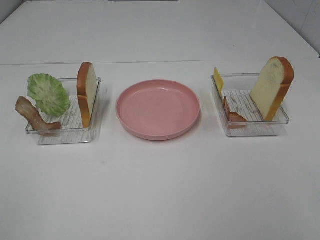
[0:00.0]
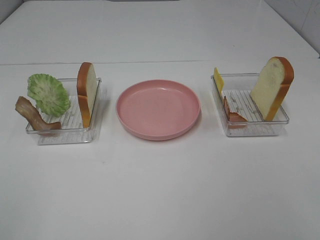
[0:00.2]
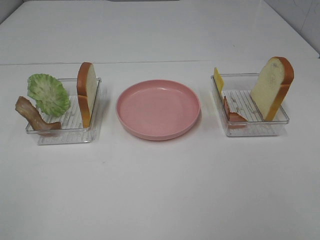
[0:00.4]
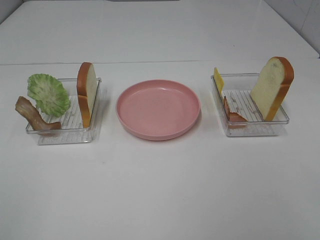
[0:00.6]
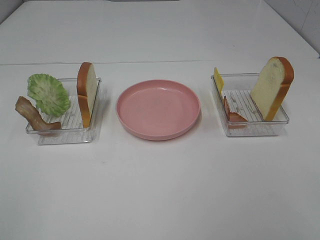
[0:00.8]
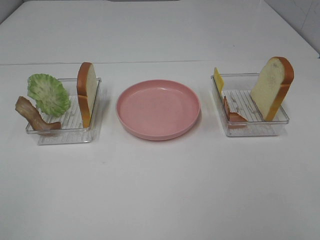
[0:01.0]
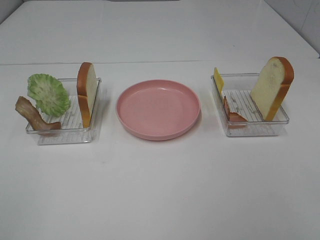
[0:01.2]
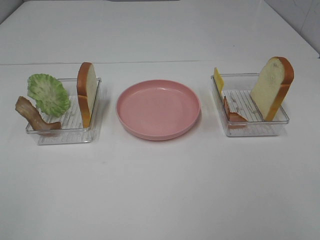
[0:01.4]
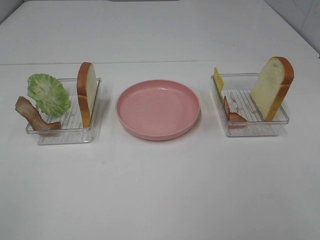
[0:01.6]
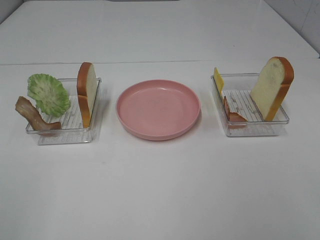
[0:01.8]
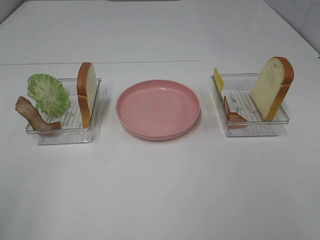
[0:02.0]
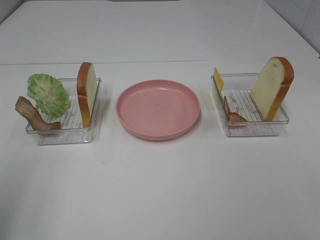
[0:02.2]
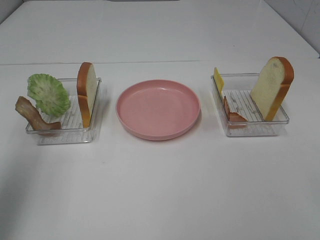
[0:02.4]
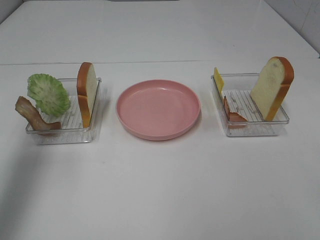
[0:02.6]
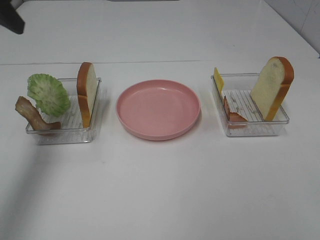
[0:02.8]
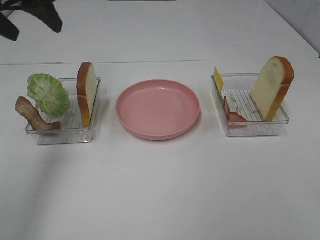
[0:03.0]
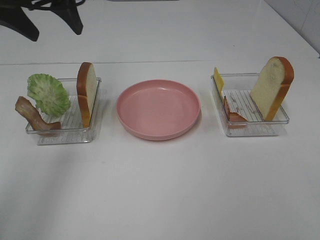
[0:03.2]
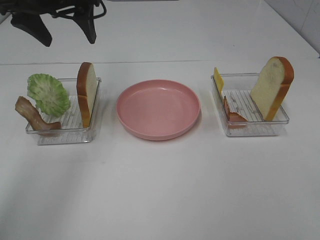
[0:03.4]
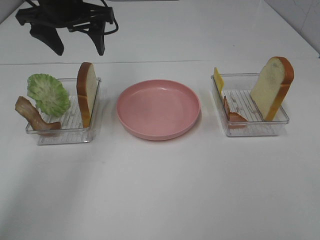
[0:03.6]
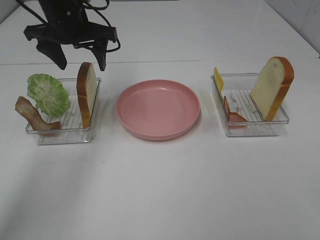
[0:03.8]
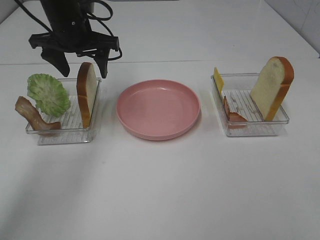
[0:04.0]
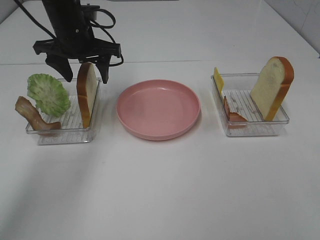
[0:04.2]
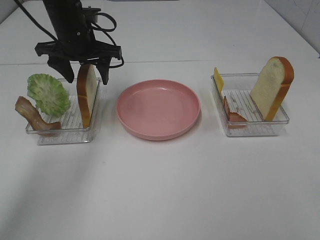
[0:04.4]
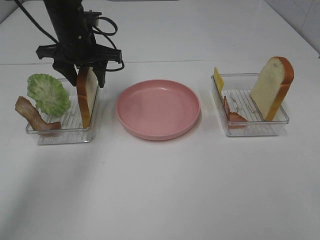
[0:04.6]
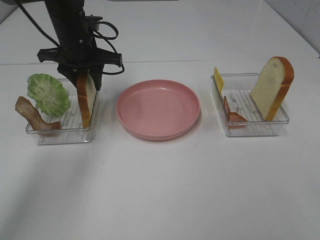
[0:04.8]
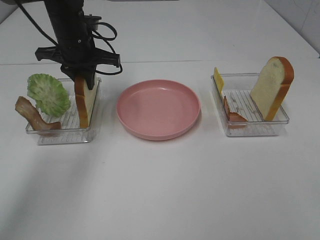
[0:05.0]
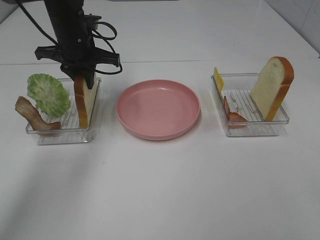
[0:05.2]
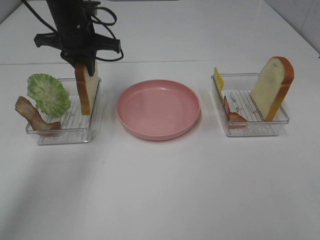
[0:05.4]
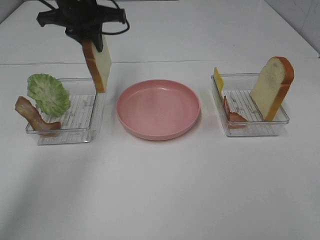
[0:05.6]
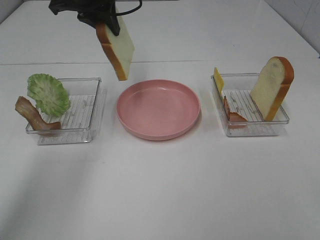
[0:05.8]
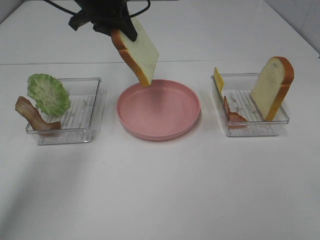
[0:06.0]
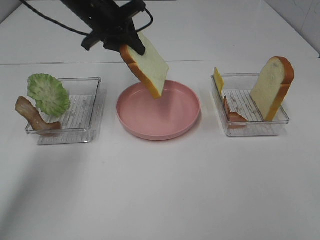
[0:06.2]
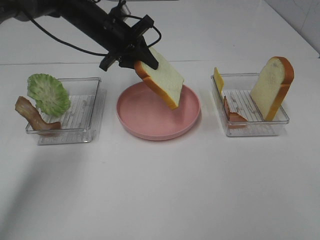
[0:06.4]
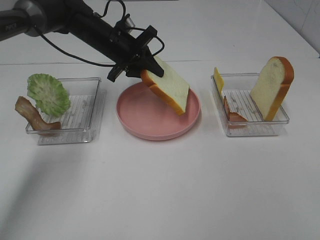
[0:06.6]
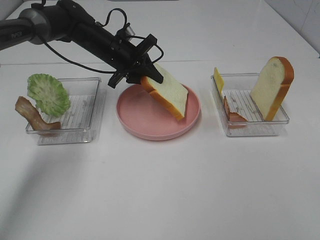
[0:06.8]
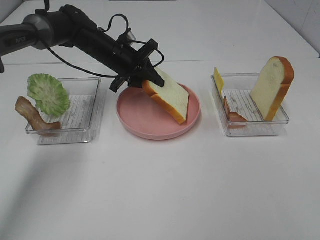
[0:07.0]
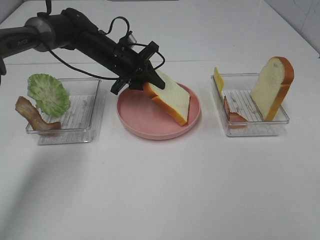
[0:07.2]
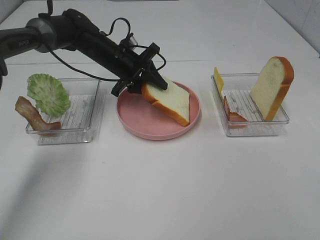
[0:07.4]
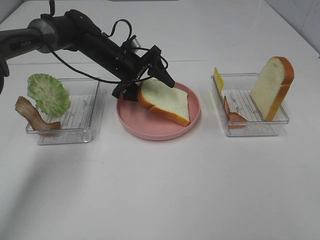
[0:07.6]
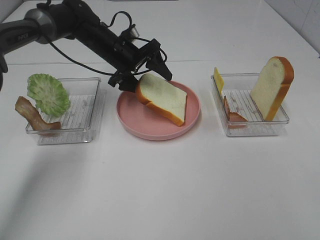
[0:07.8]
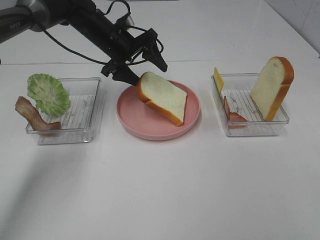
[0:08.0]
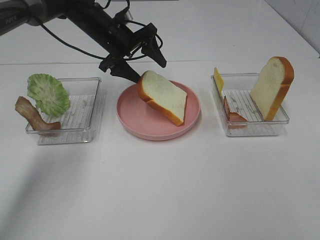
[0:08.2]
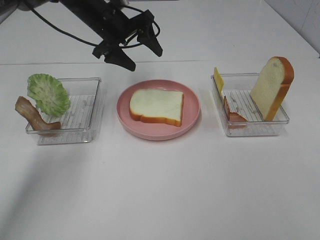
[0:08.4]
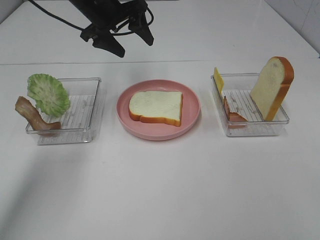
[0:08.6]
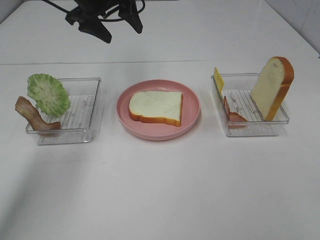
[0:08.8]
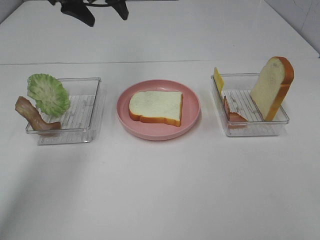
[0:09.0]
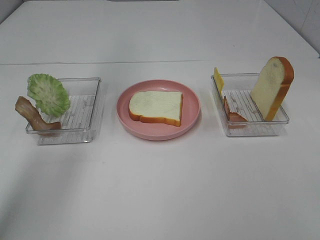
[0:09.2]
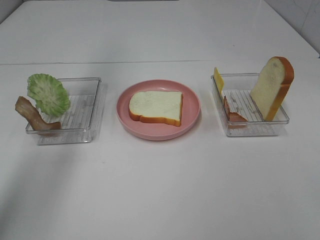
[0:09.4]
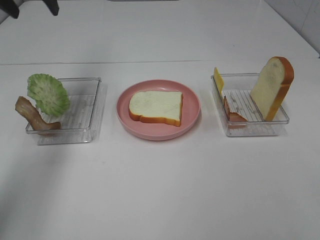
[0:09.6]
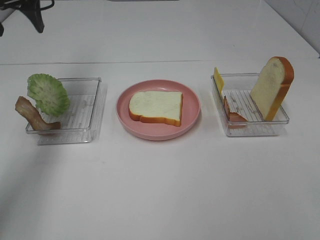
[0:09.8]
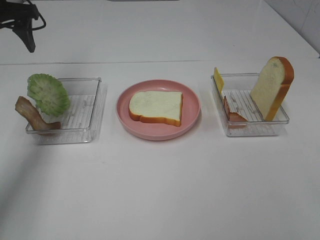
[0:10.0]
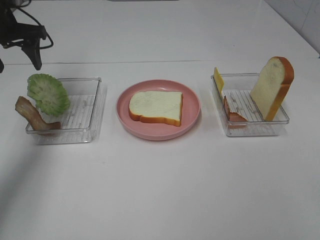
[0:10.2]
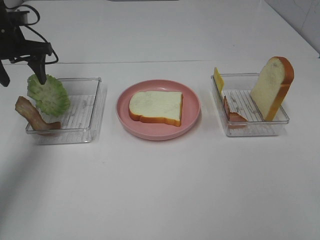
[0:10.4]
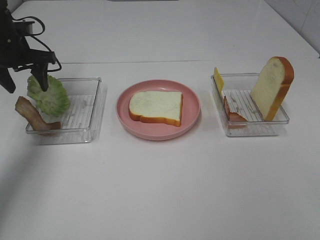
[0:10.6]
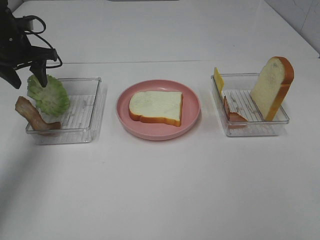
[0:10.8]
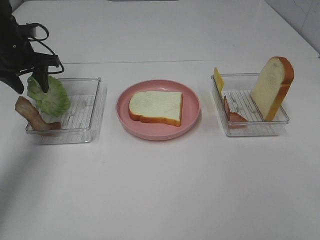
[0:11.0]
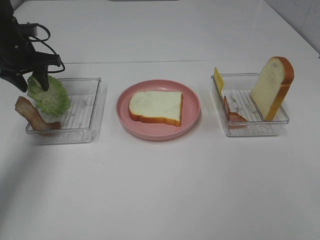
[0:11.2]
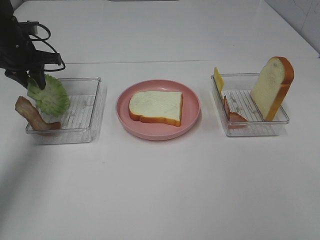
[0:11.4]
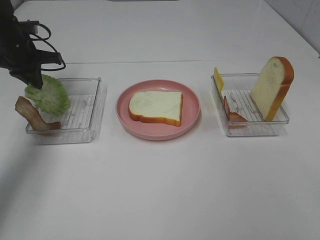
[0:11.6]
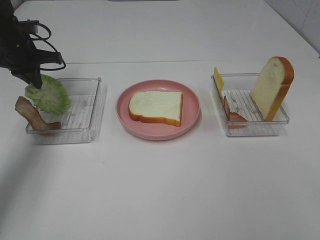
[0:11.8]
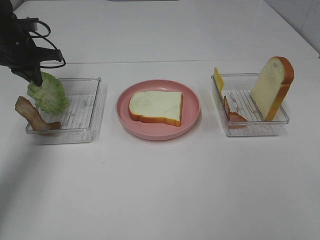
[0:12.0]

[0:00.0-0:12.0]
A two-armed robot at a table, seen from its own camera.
Task of the whole recording: Make sandwiches.
Step, 0.0 to 5.0 s: Left hand:grab the bread slice.
Step, 5.2 to 8.4 s: Left hand:place the bread slice on the plate.
Step, 8.6 to 11.4 s: Left hand:grab the lettuce slice.
0.0 to 1.6 s: Both grippers stay put.
1.6 to 3.0 s: The left gripper shifts approximately 35 cm forward.
3.0 to 4.4 s: The left gripper travels downward, forward and to the right by roughly 15 cm.
4.4 to 6.0 s: The left gripper goes some 5 cm upward, and closes up.
6.0 to 7.6 s: The left gripper moves downward, some 15 cm, and opens up.
7.6 to 9.0 s: The left gripper travels upward by approximately 20 cm.
9.0 to 10.4 s: The left gripper goes some 20 cm to the left and downward.
10.4 to 12.0 s: The left gripper closes.

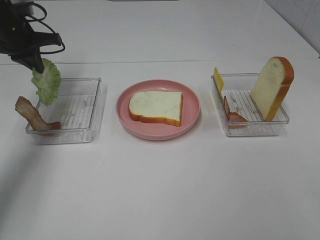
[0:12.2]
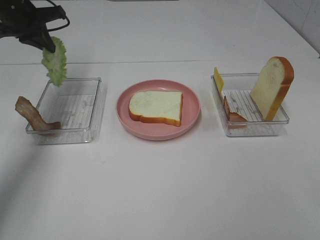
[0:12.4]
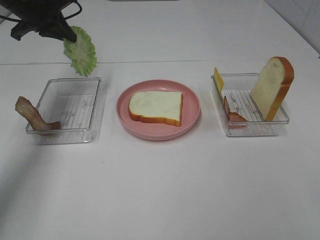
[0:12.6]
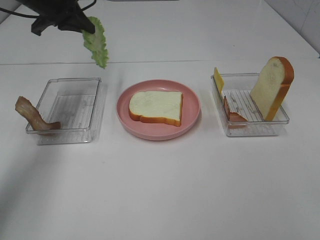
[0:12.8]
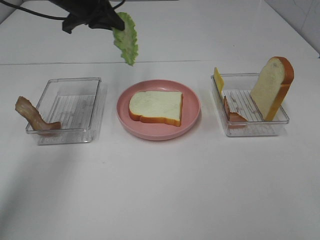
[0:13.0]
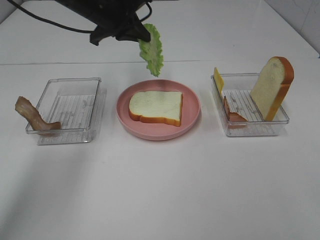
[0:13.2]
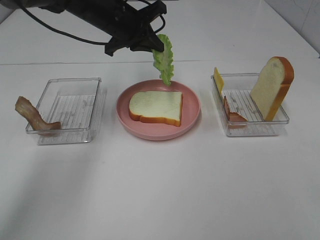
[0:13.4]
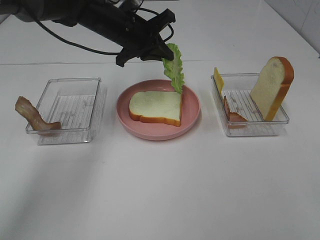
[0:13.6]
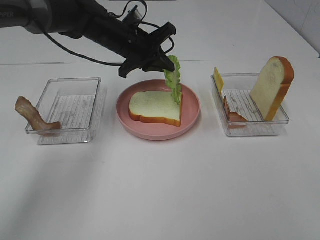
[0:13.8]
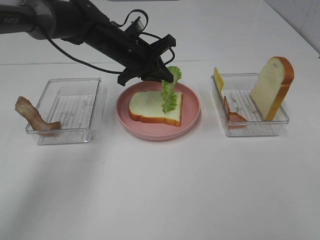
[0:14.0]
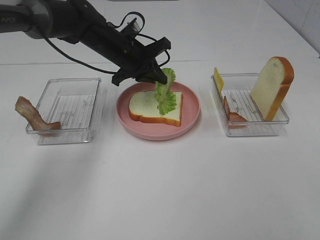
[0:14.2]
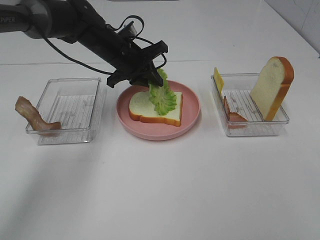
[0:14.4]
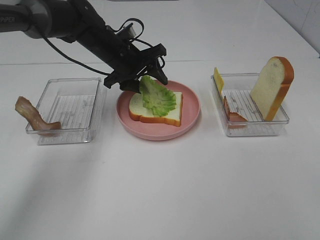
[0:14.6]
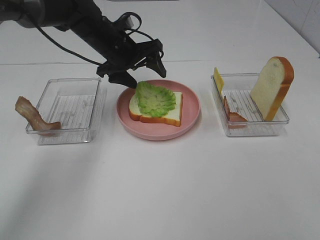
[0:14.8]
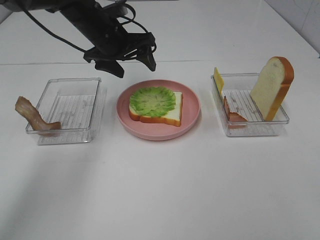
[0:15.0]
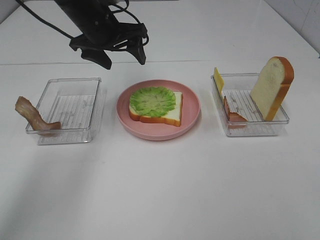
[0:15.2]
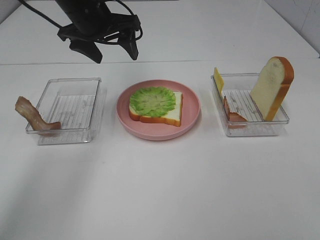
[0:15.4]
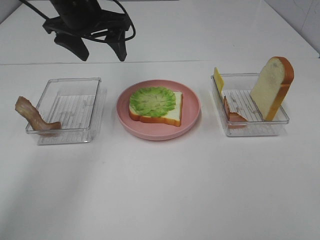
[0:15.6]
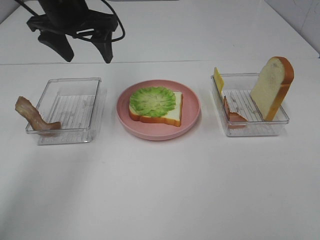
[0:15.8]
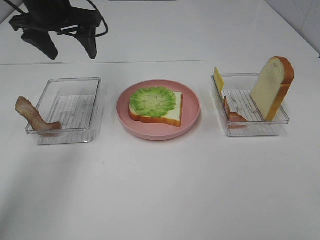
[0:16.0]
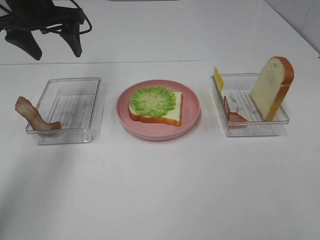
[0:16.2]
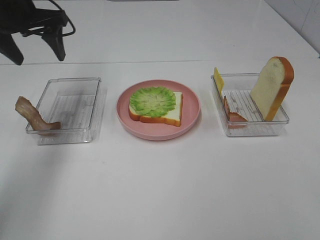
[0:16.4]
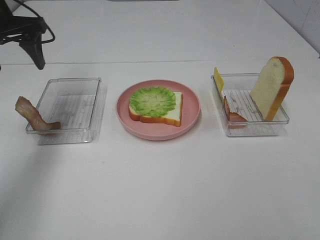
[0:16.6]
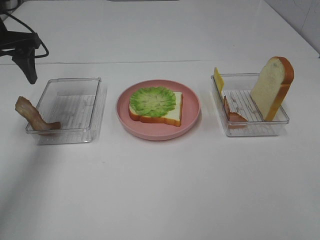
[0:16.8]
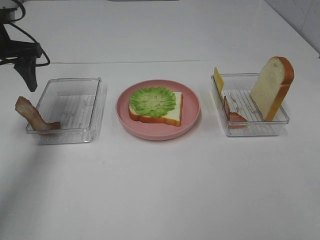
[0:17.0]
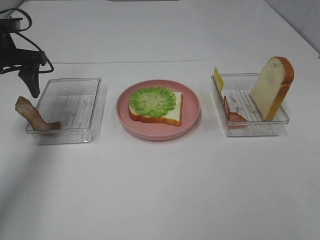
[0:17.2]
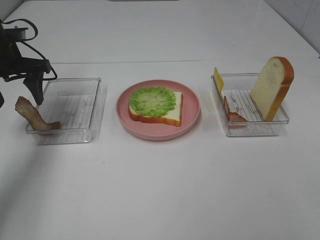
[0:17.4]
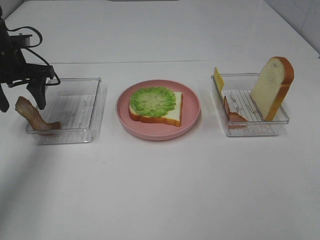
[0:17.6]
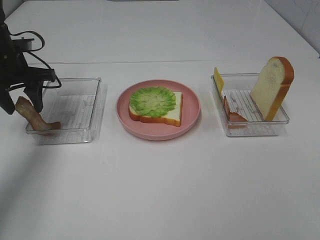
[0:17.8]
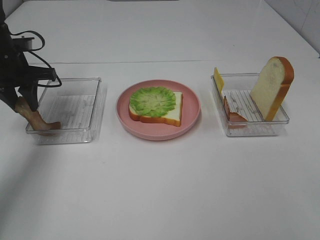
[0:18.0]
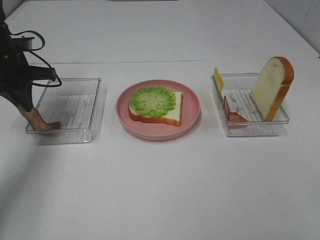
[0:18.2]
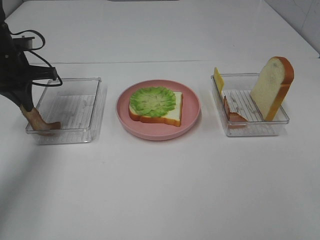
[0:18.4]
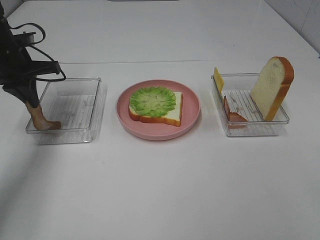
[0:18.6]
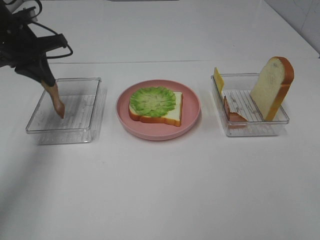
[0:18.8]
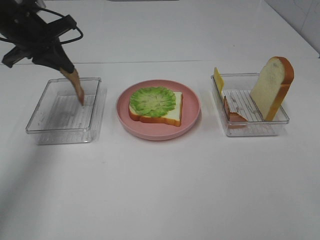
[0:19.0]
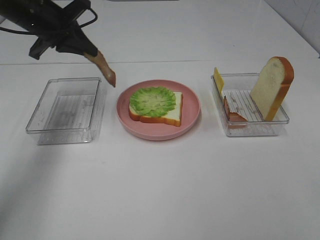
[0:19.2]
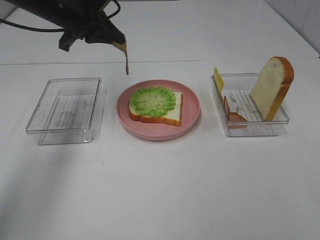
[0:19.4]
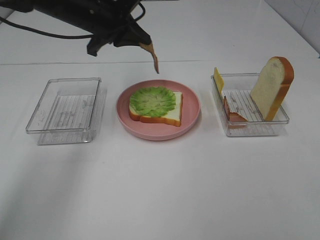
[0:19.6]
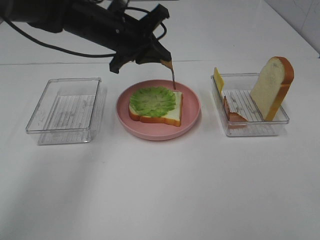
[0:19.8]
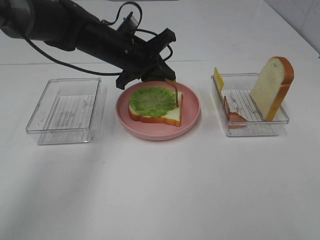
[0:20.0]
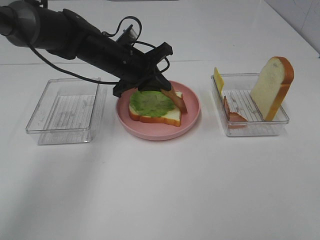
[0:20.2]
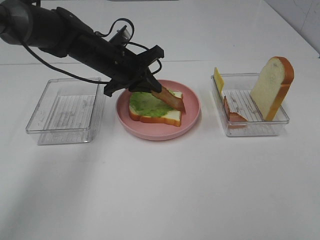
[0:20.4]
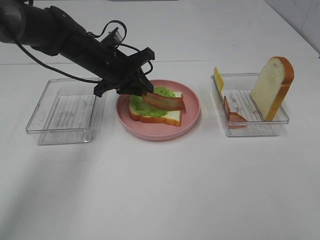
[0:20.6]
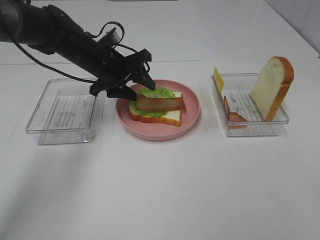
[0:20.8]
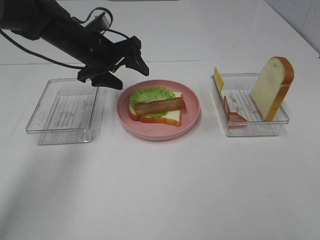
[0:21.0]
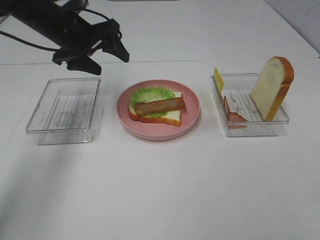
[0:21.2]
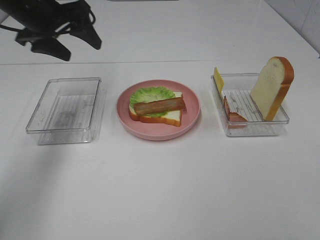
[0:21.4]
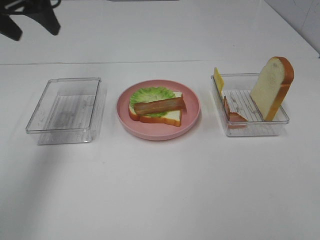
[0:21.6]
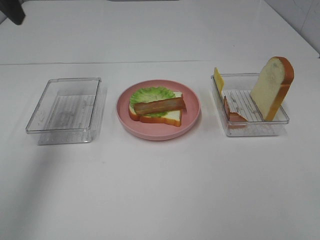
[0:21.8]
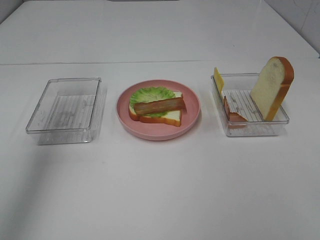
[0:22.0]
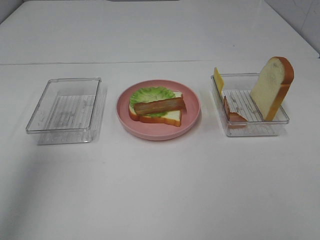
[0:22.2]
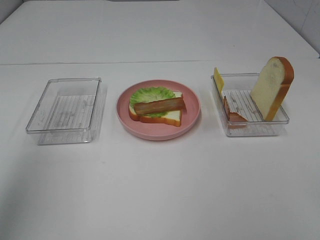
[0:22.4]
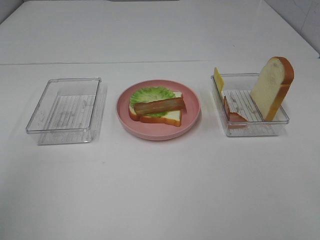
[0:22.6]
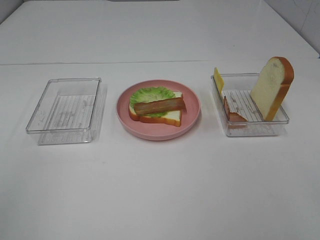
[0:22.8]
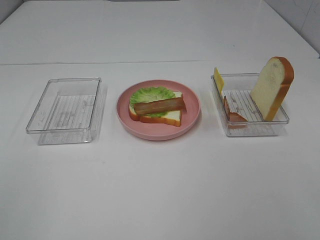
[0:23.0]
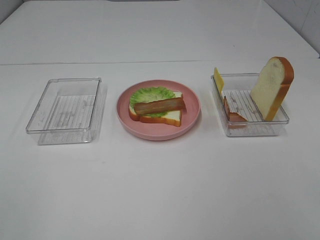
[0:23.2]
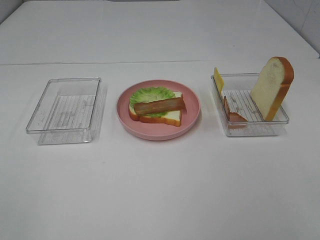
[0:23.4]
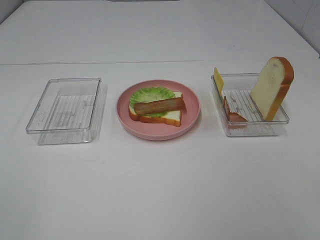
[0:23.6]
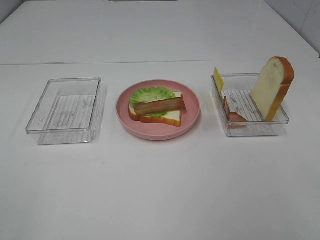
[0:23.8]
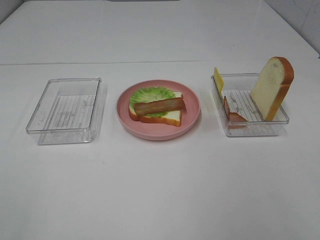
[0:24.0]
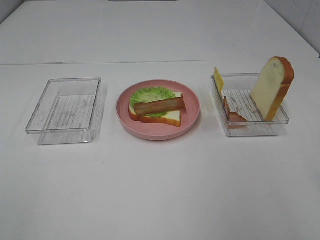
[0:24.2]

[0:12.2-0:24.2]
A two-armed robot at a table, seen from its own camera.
Task of the whole recording: Make sandwiches.
Step, 12.2 to 14.8 s: Left hand:place the lettuce slice on the bread slice.
Step, 15.0 to 18.2 s: Left hand:grab the bacon.
Step, 18.4 to 20.8 s: Left hand:place bacon on lettuce slice.
12.2 to 13.8 s: The left gripper travels to the right by some 20 cm.
13.8 to 15.2 s: The left gripper heads upward, covering roughly 5 cm, and opens its fingers.
15.2 to 16.6 s: The left gripper is displaced to the left by roughly 15 cm.
16.6 to 18.2 s: The left gripper moves downward, about 10 cm, and closes its fingers.
18.2 to 19.8 s: The left gripper heads to the right, covering approximately 20 cm.
19.8 to 21.2 s: The left gripper is displaced to the left by some 10 cm, and opens its fingers.
21.2 to 22.6 s: The left gripper shifts approximately 40 cm backward and upward.
